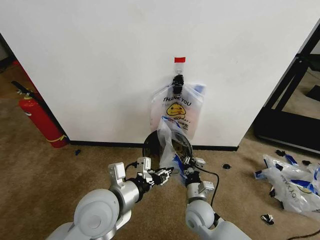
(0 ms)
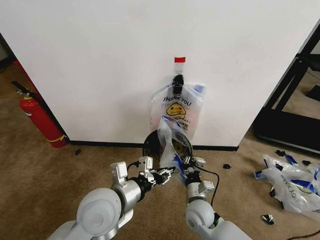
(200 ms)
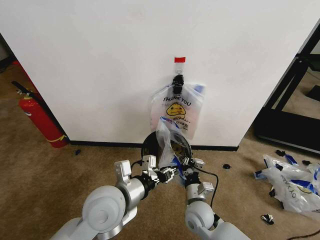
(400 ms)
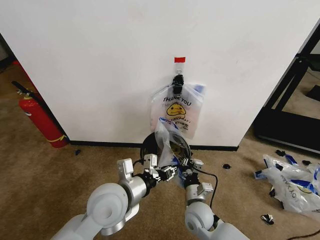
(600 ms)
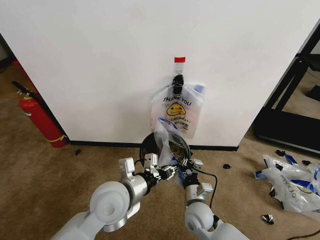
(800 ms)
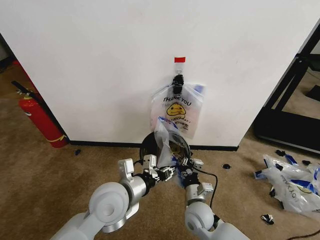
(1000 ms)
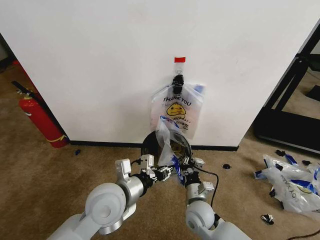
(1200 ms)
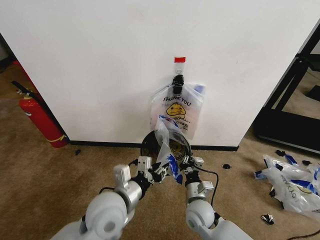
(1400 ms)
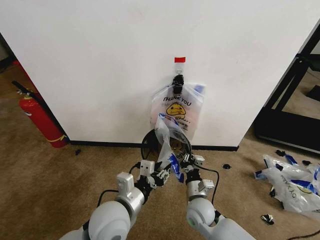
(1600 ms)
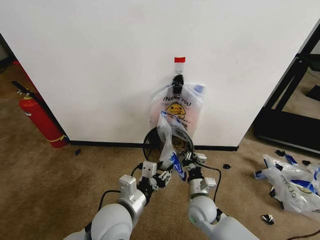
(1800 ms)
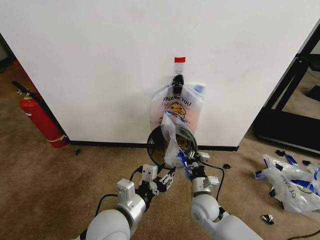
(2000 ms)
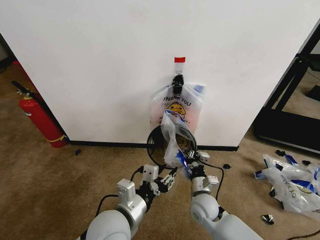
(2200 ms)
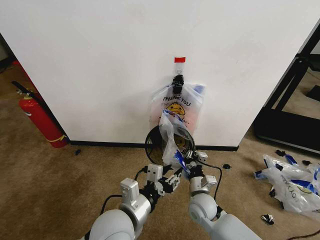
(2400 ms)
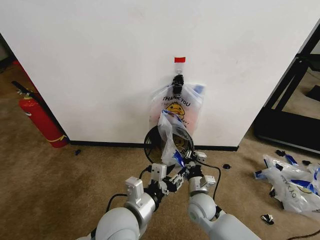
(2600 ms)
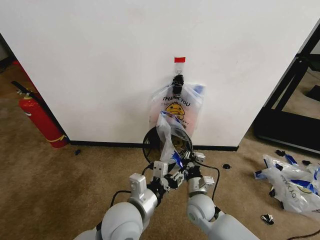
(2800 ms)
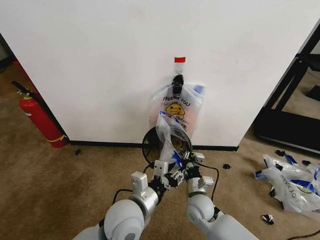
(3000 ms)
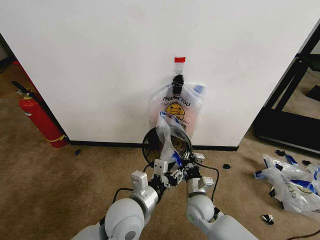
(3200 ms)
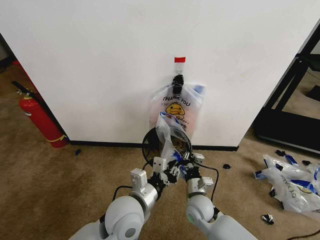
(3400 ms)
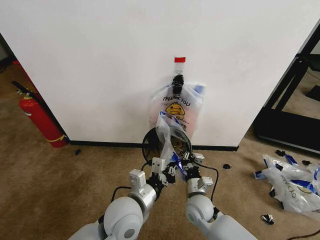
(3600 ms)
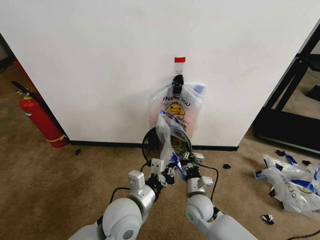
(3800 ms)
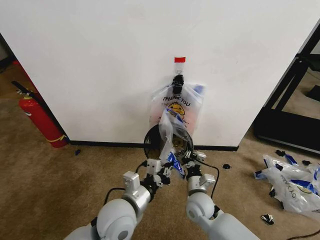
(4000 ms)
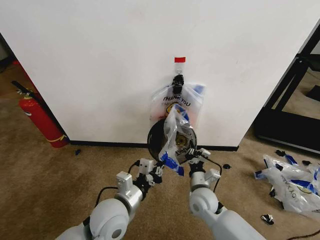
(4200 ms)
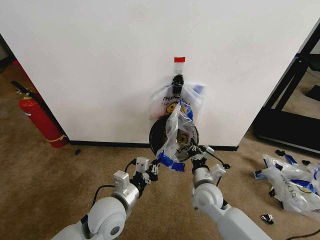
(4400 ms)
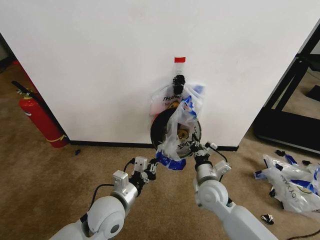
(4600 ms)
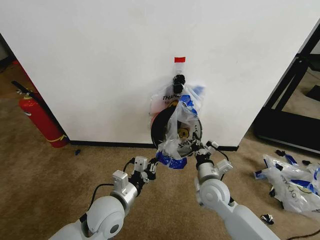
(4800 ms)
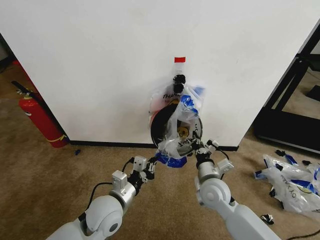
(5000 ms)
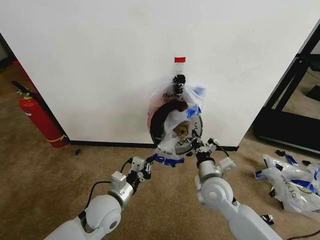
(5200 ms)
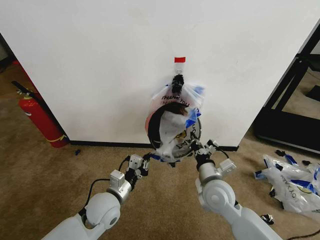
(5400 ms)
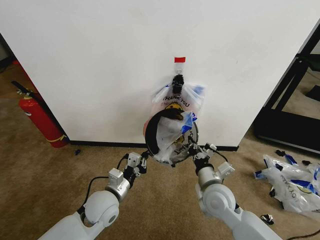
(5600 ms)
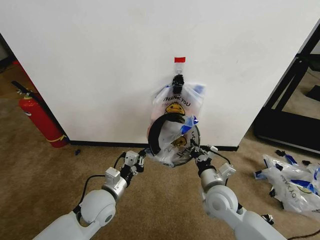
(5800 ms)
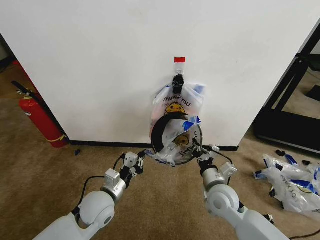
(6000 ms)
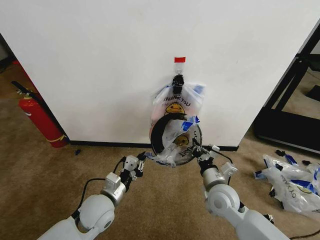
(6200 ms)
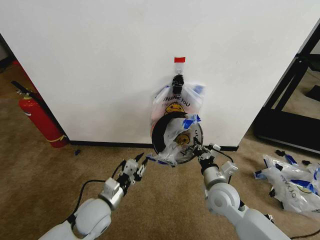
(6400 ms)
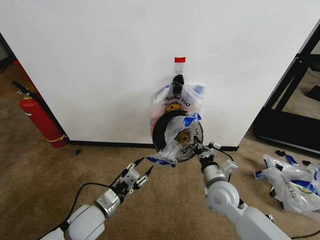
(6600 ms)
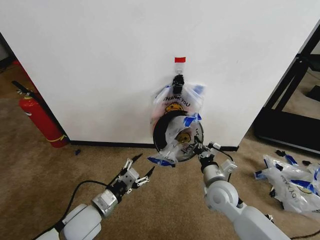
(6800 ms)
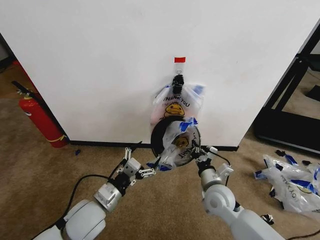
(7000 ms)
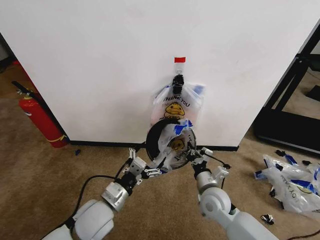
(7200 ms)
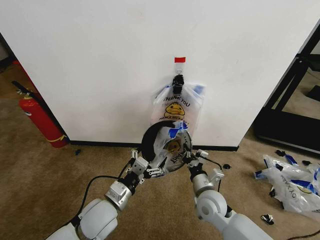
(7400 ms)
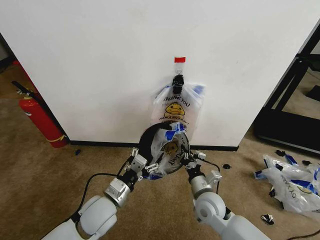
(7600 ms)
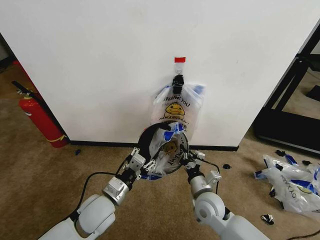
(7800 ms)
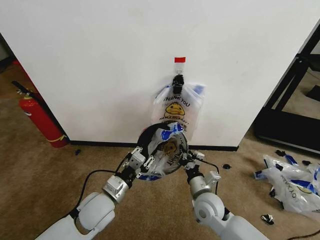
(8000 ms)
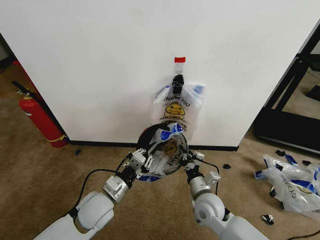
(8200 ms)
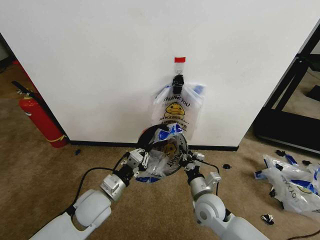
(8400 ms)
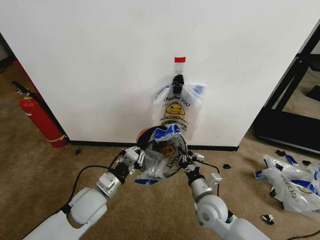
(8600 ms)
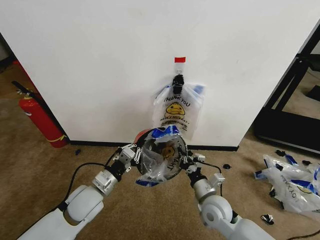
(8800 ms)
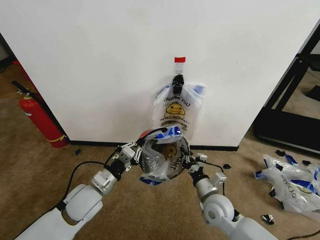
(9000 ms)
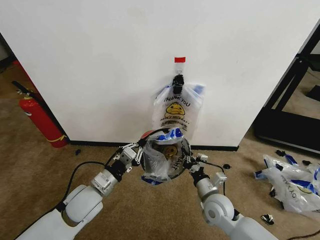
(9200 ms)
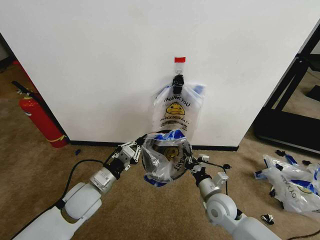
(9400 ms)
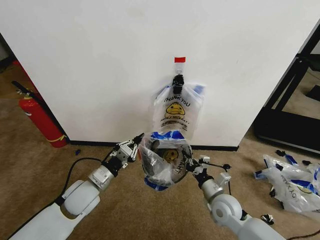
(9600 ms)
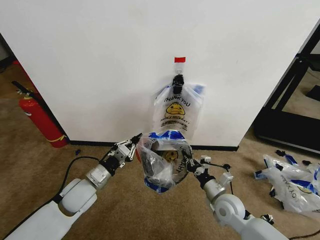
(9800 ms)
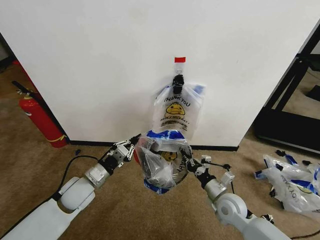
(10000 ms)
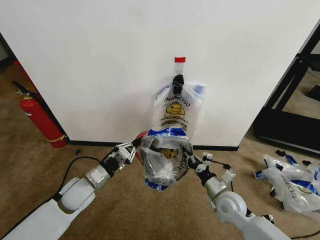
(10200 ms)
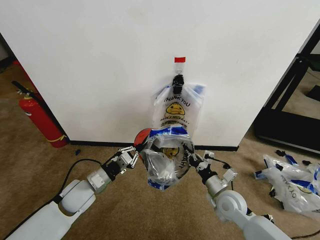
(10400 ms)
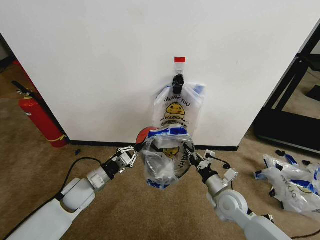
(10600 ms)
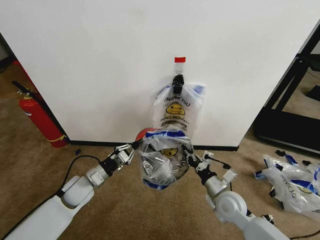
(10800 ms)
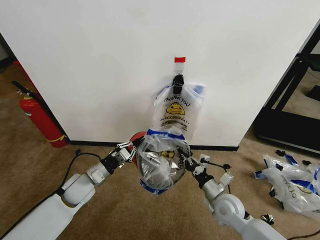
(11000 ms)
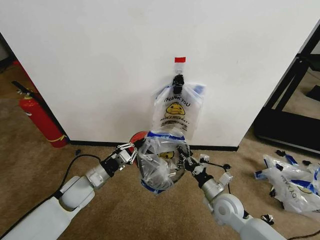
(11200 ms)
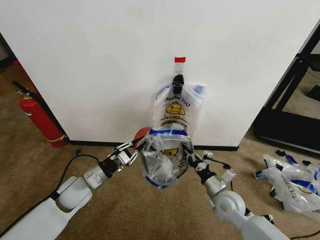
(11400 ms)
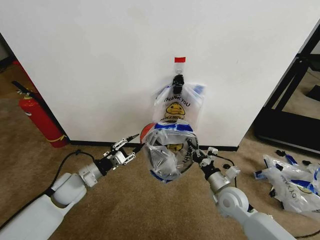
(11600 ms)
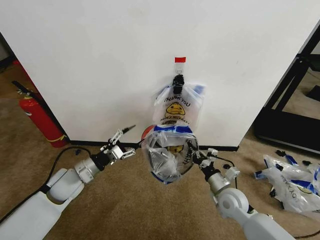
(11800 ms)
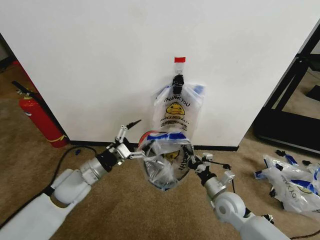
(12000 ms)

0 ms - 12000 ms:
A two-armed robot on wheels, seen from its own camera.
Task of the whole recording: Pick up the garbage bag from the wall and place it over the trash bin.
0 ms - 1600 ms: There are only small adjustments of the grippers.
1600 ms - 3000 ms: The grippers make only small movements.
3000 ms - 4400 ms: The right gripper travels upward by about 5 cm, while the left gripper moves to the left, roughly 5 cm, and closes up.
4400 ms - 6000 ms: The left gripper moves roughly 5 cm.
6000 ms - 7600 ms: The left gripper opens. The right gripper shifts by roughly 5 cm.
7600 ms - 9000 ms: The left gripper ends up roughly 5 cm from where it was, and closes up.
9000 ms - 10400 ms: The left gripper ends up some 5 cm from where it was. Meanwhile the right gripper shifts by some 5 cm.
10400 ms - 12000 ms: The left gripper shifts approximately 5 cm upward, and opens up.

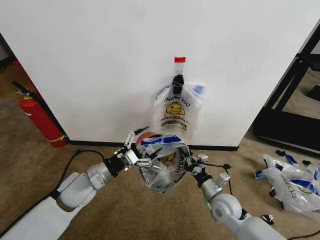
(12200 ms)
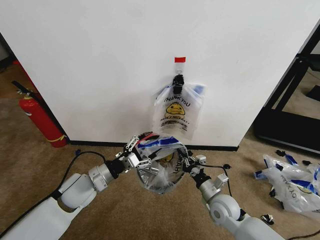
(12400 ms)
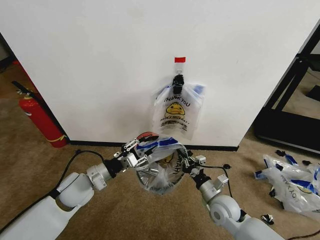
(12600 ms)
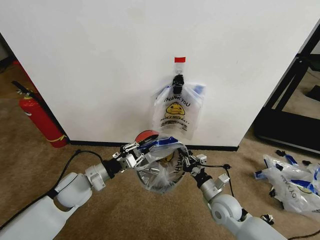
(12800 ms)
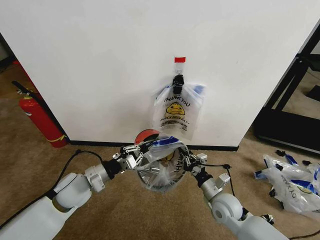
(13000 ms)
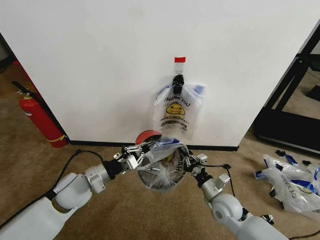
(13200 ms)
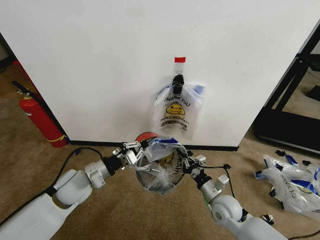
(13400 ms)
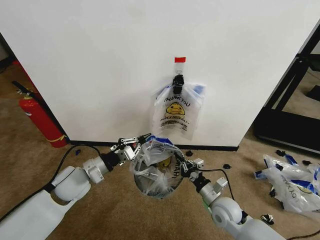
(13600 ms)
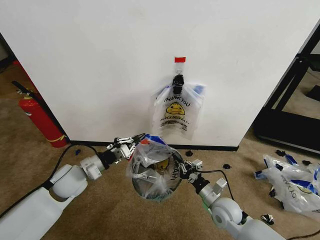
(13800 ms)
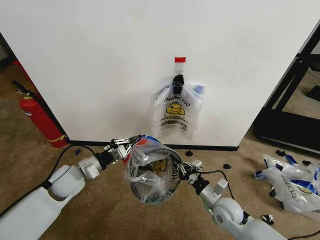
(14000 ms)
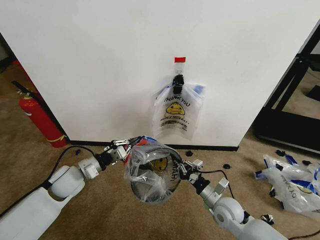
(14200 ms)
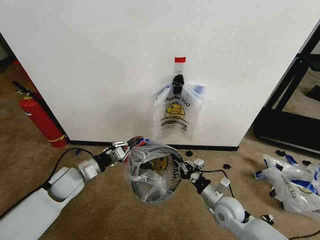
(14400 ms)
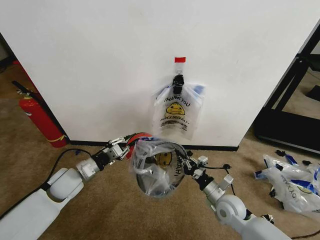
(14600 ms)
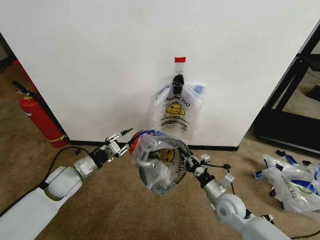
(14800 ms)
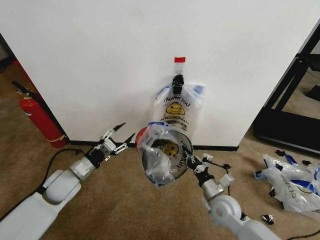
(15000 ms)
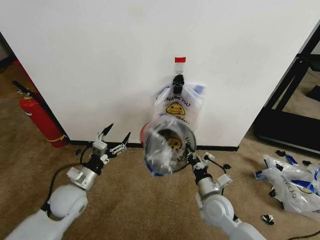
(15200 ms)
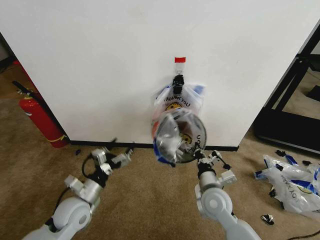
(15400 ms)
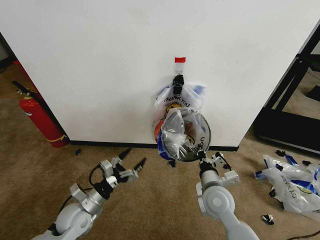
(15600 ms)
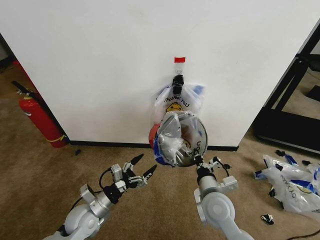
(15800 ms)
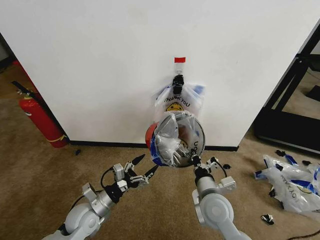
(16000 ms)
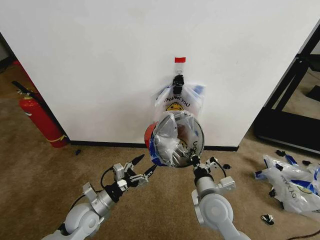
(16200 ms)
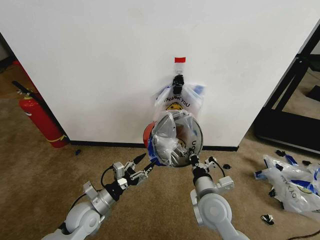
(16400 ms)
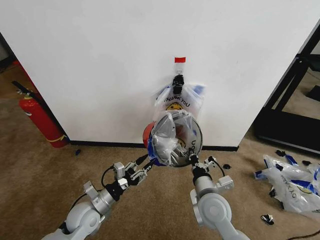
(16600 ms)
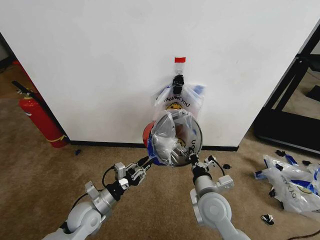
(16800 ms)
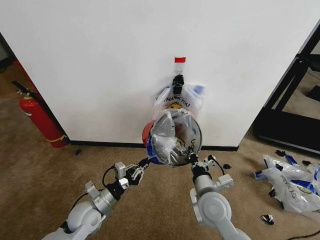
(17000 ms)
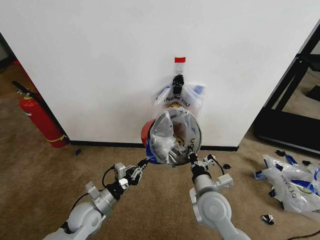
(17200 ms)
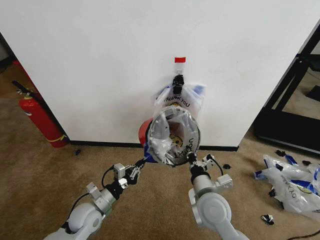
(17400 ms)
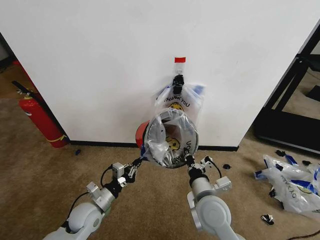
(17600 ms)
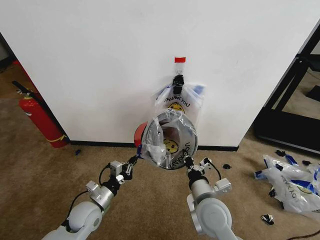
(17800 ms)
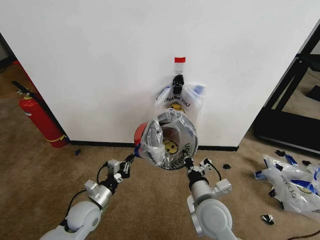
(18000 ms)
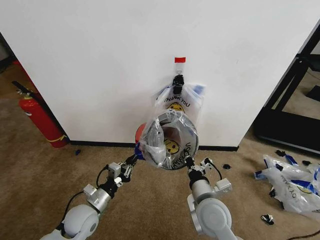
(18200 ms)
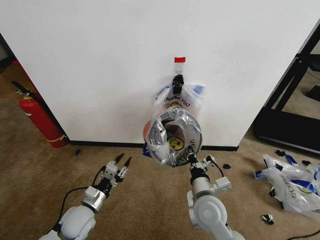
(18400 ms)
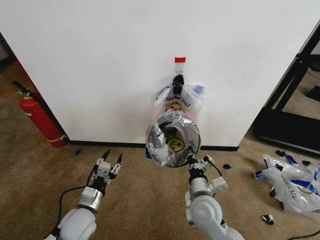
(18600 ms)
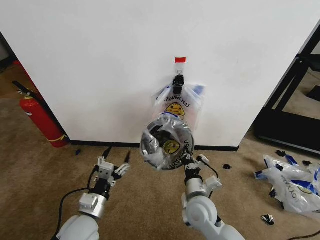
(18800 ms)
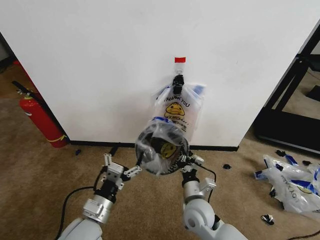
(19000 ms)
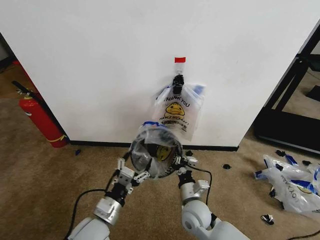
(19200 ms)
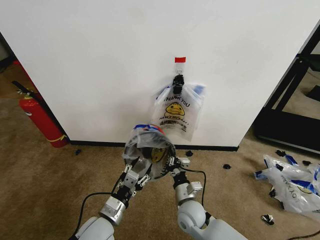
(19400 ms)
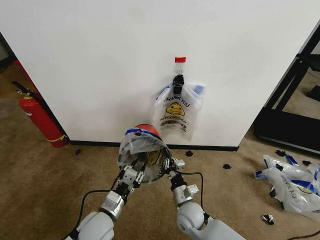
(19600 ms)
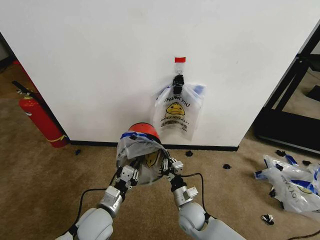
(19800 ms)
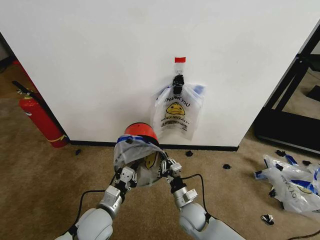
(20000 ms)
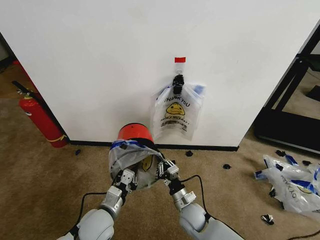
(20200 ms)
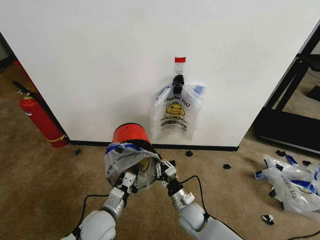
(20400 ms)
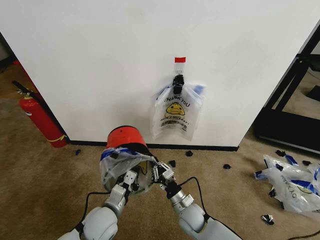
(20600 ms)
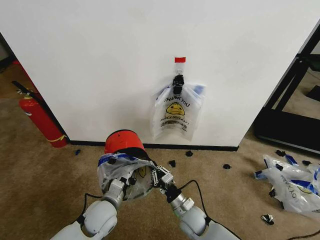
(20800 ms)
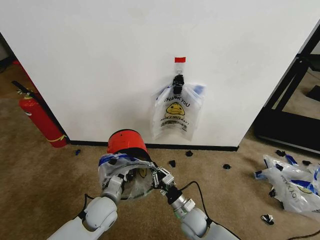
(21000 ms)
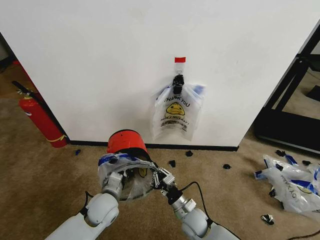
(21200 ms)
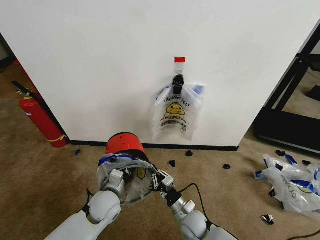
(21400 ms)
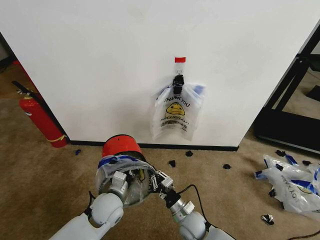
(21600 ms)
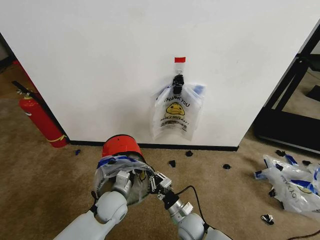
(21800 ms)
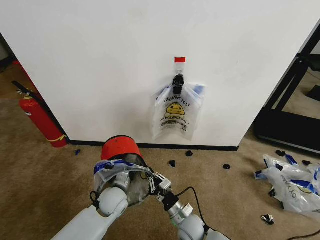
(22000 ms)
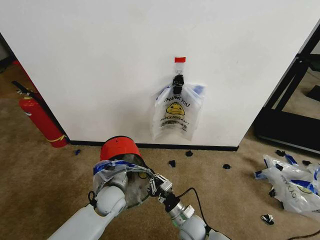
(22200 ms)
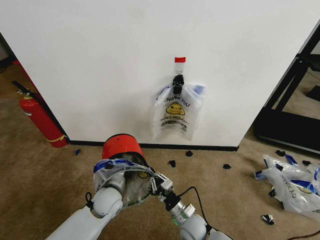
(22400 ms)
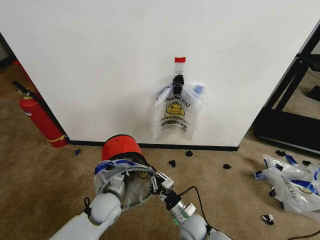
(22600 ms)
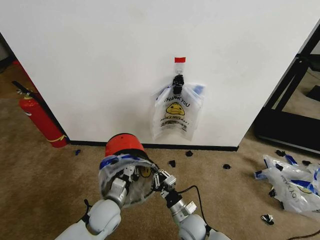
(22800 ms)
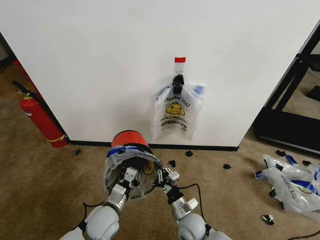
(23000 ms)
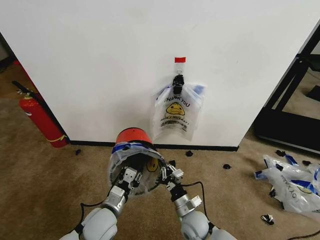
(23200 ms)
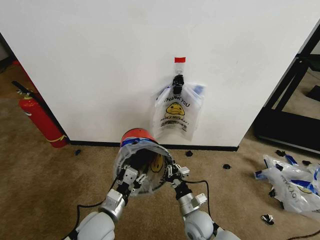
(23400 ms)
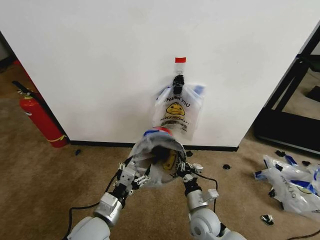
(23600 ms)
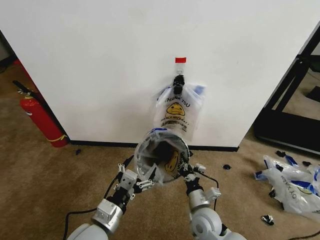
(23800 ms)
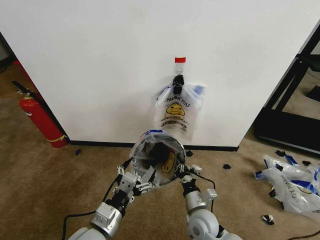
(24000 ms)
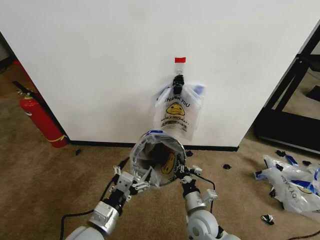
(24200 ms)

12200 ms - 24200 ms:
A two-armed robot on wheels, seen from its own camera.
Task of the whole recording: Pick up the garbage bag from the wall and place it over the trash bin.
12200 ms - 13800 ms: The left gripper closes its fingers.
13800 ms - 15200 ms: The right gripper ends up approximately 5 cm from where it was. The left gripper changes place by about 5 cm, and opens its fingers.
15200 ms - 16600 ms: The left gripper travels downward by approximately 5 cm, and closes up. The right gripper shifts roughly 5 cm upward.
18200 ms - 19800 ms: The left gripper shifts approximately 5 cm to the right, and opens, then closes again. The right gripper shifts roughly 15 cm downward.
19800 ms - 21200 ms: The left gripper travels forward by roughly 5 cm.
21200 ms - 22600 ms: There are only small adjustments of the grippers.
22600 ms - 24200 ms: The left gripper heads backward and upward, covering approximately 15 cm, and opens up; the right gripper heads upward, covering some 5 cm.
